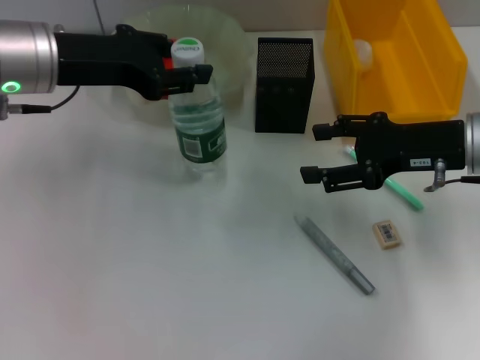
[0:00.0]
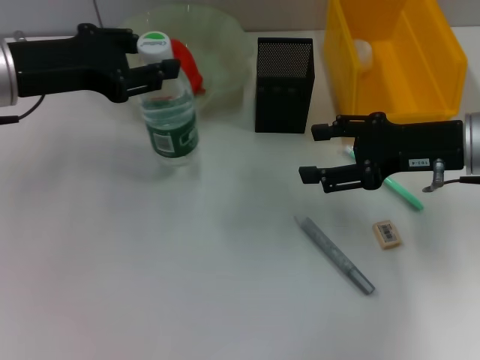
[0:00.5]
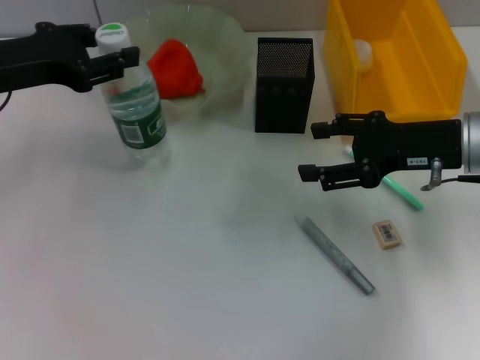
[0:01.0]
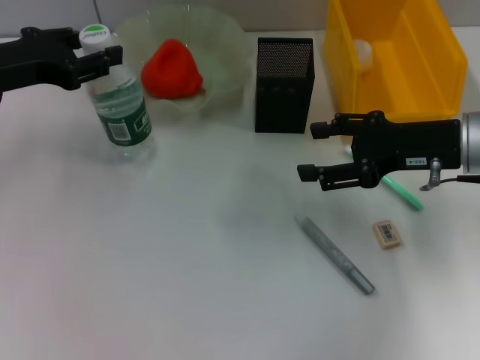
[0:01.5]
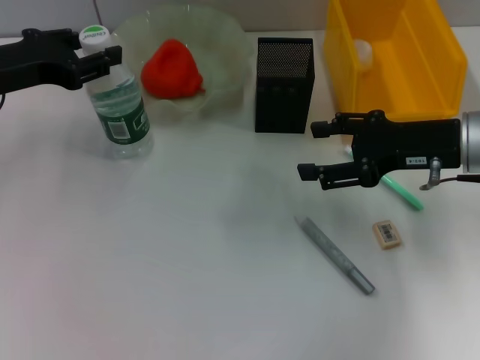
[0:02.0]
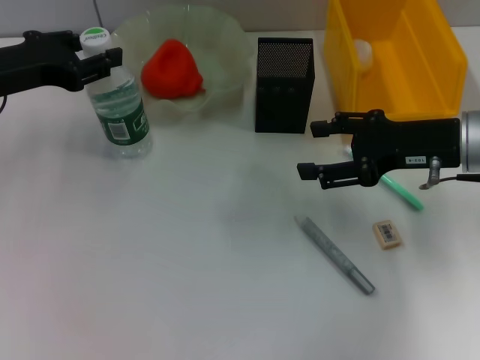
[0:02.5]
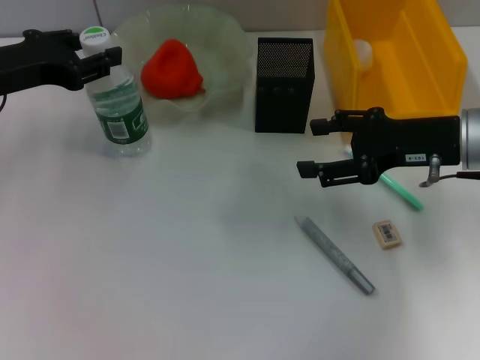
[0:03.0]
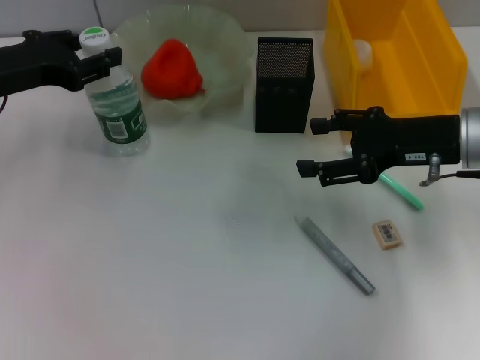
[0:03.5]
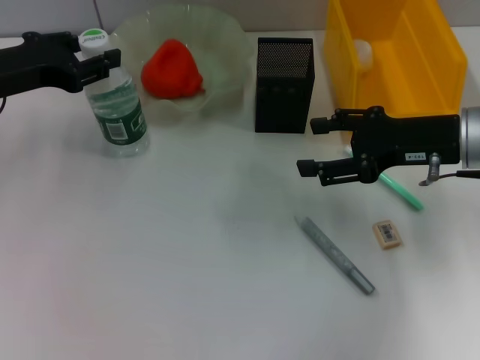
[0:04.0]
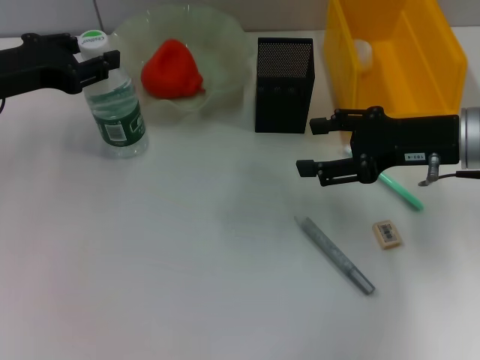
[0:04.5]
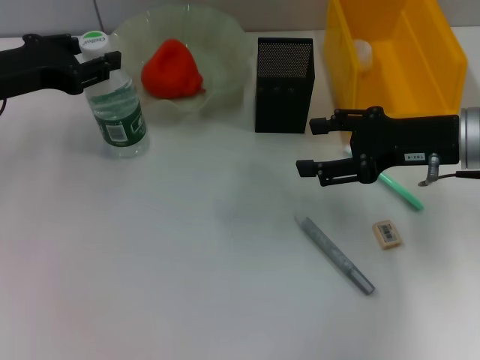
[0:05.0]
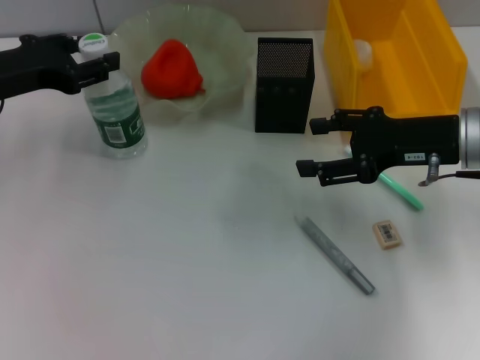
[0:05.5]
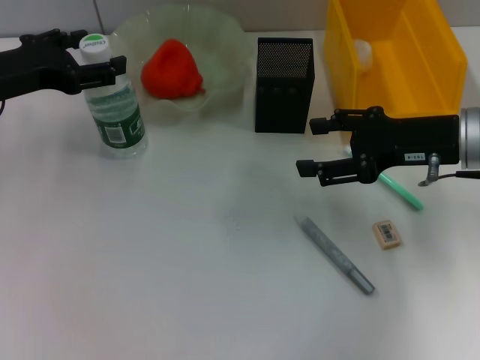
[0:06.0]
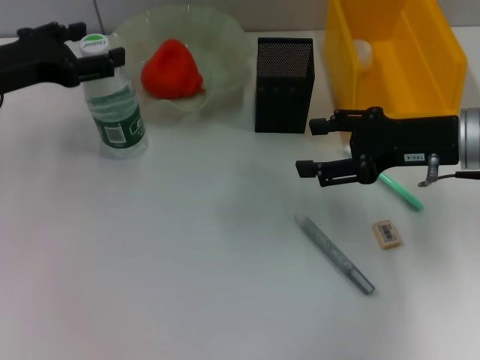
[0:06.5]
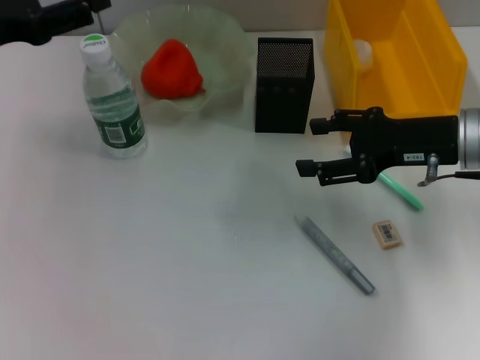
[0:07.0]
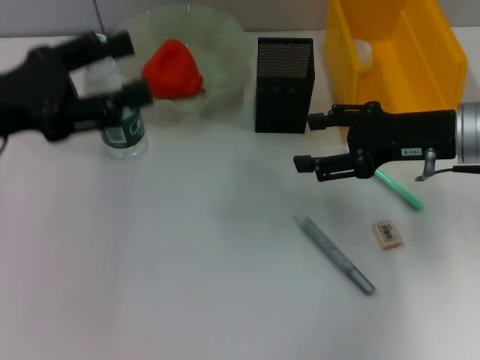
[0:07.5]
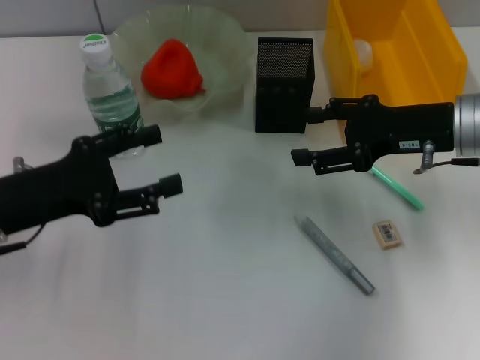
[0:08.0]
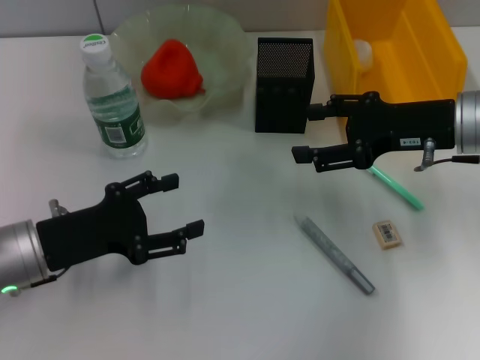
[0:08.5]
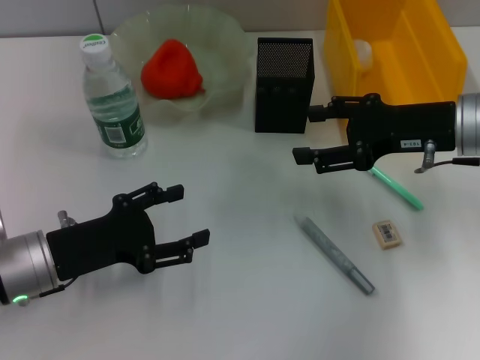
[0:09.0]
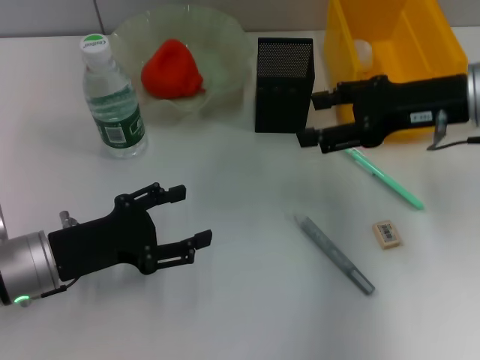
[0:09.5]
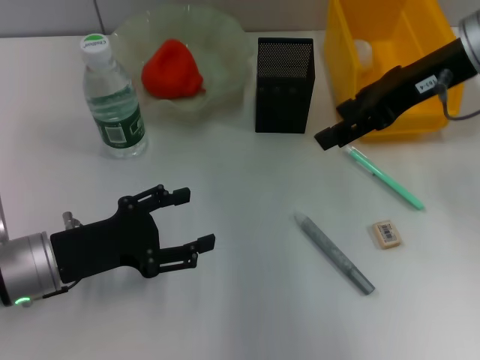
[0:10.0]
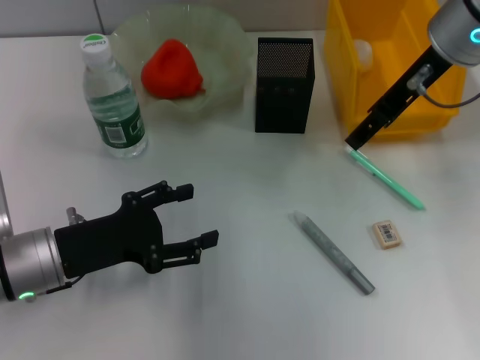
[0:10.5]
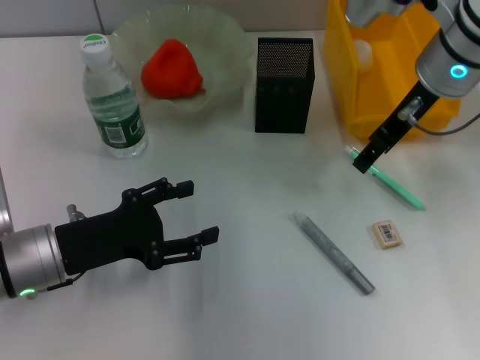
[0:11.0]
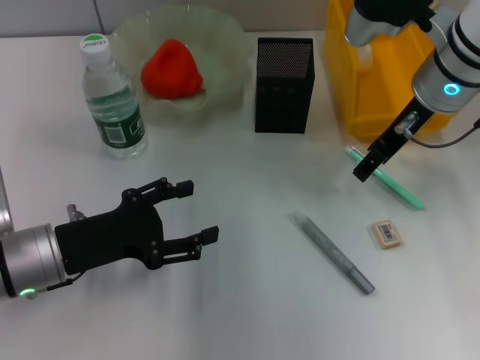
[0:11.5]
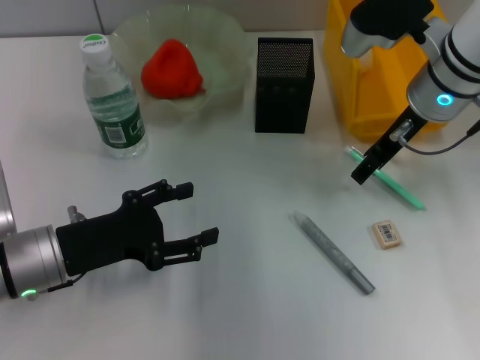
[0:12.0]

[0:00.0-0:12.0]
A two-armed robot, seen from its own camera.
Step, 0.0 to 5.5 s: Place the water bottle on the table with the left hand.
0.0 to 2.0 s: The left gripper moves to the left, some 5 cm.
2.0 to 4.0 s: Neither gripper changes place.
4.0 to 6.0 s: The left gripper opens.
6.0 to 8.0 s: The left gripper goes about 10 cm backward.
8.0 to 10.0 s: The left gripper is displaced downward by about 10 cm. Meanwhile the right gripper moves upward, approximately 10 cm.
10.0 to 12.0 s: The right gripper goes some 5 cm downward.

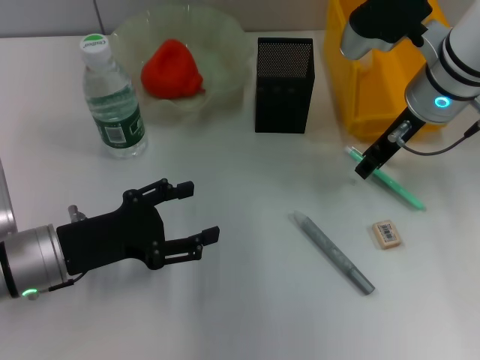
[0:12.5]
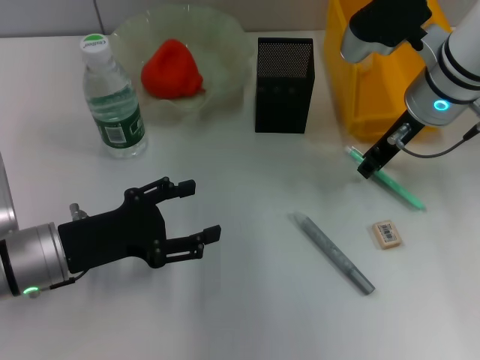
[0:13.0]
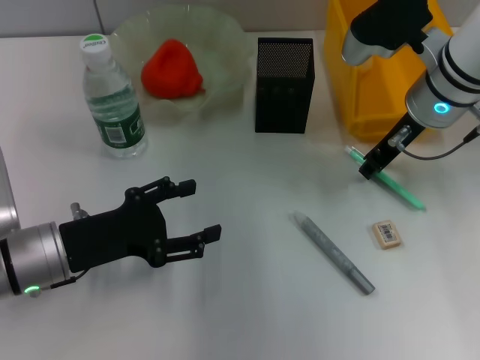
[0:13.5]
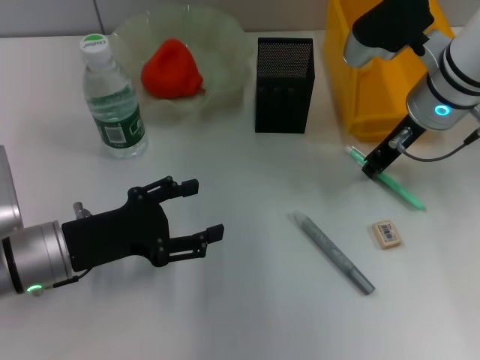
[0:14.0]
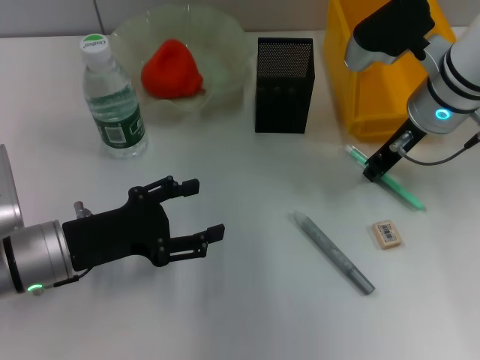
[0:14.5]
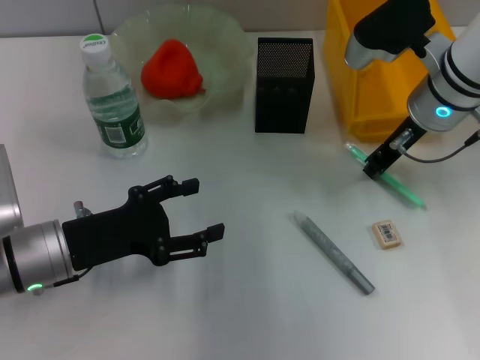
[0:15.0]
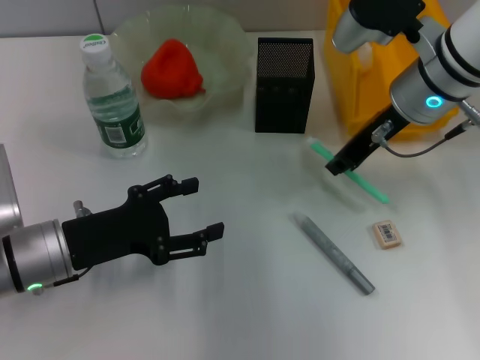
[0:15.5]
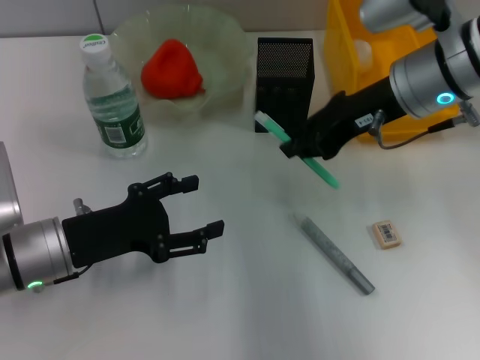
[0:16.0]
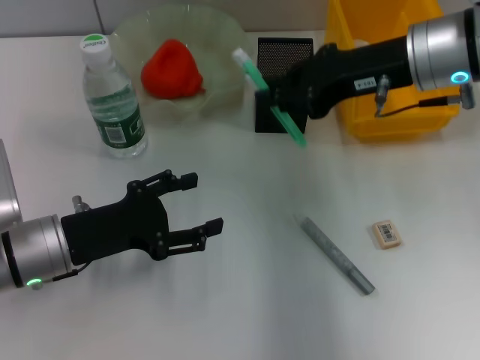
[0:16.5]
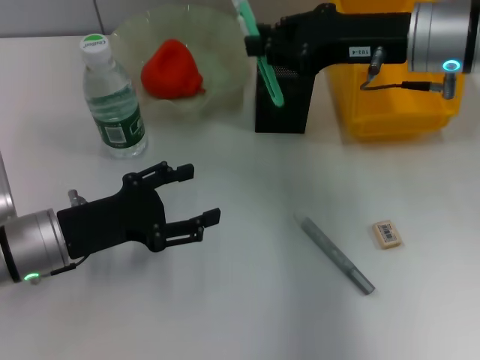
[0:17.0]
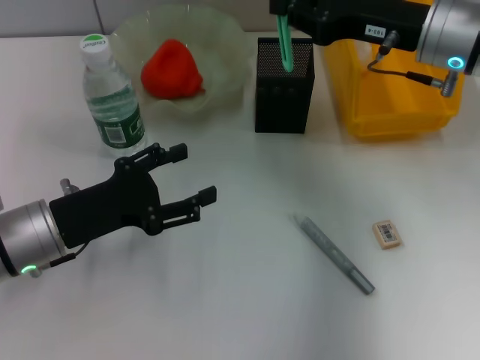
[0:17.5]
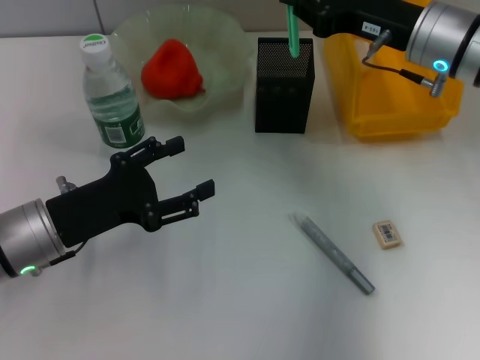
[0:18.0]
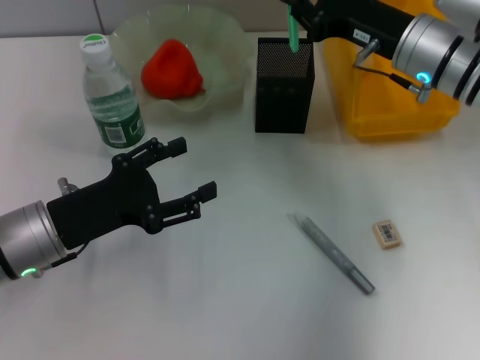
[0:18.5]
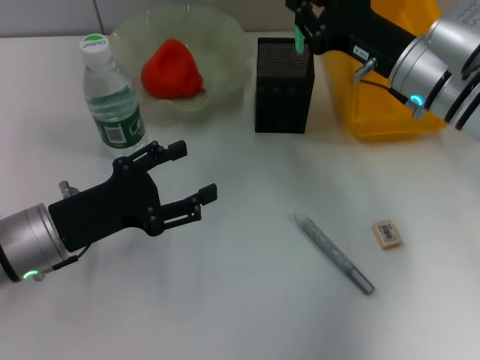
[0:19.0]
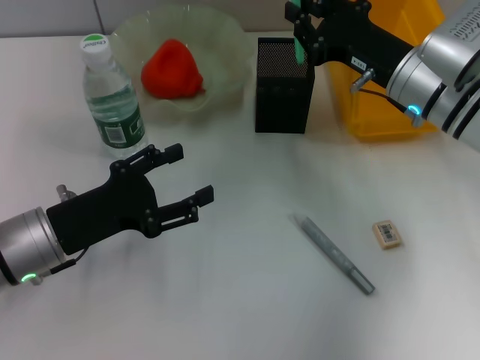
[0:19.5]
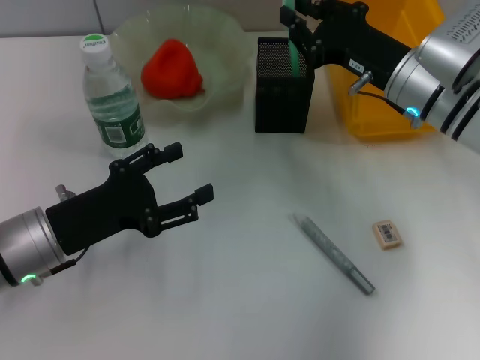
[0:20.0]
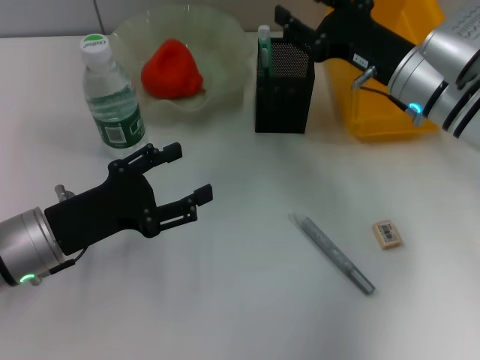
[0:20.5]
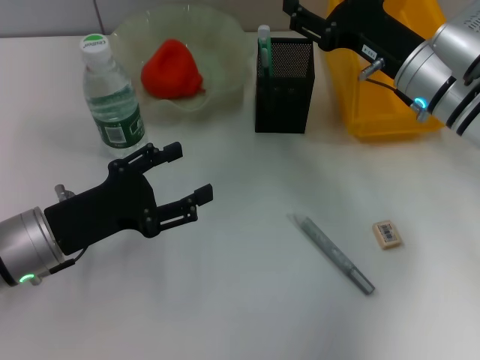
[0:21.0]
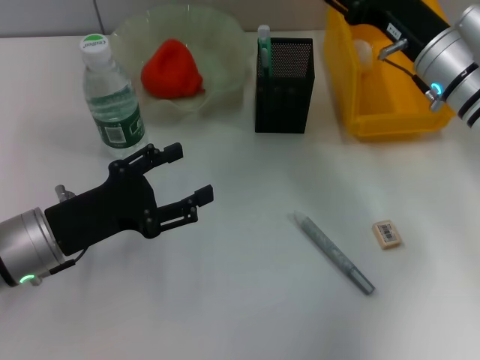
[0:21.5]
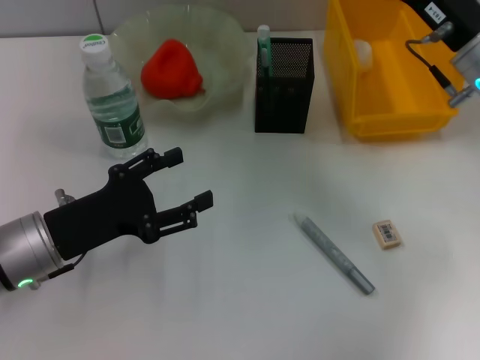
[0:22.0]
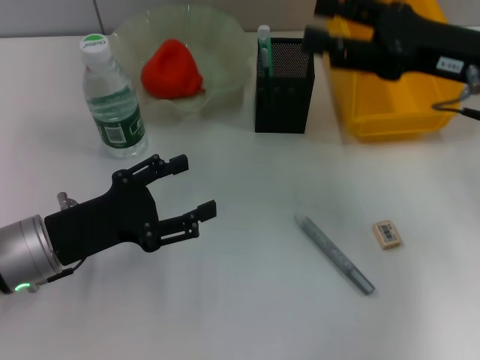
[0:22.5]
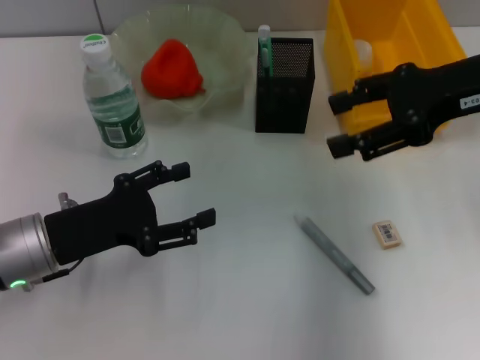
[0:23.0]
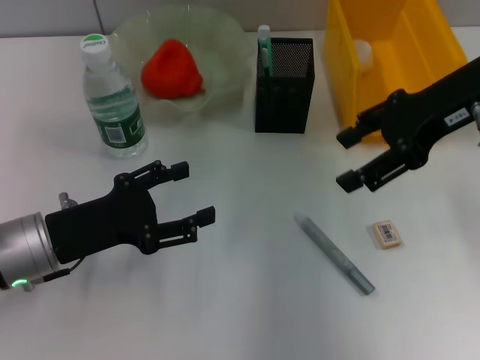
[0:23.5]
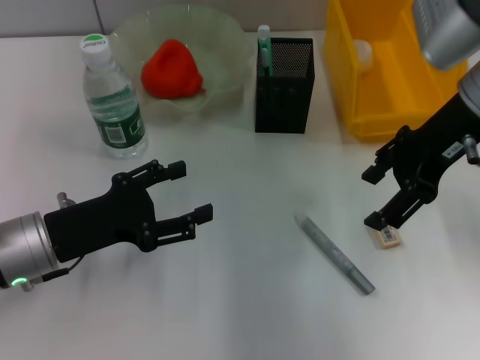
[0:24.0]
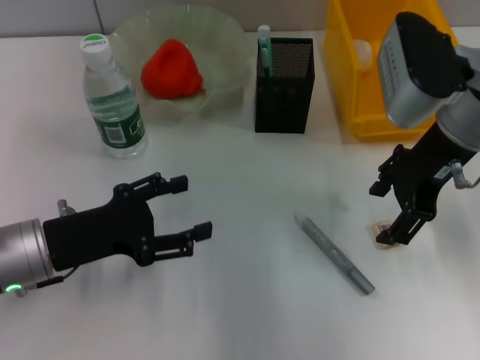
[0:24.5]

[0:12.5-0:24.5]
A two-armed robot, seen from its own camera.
Step, 12.5 to 14.5 s: Grab the blue utility knife with the right hand.
Step, 15.0 to 20.0 s: Place the blue utility knife into the pen holder with the right hand.
12.5 to 14.5 s: The right gripper closes.
14.5 to 16.5 s: The right gripper moves upward, about 5 cm.
16.5 to 18.5 s: The right gripper travels downward by some 5 cm.
18.5 to 20.5 s: The grippers move only a little.
20.5 to 22.5 s: The right gripper goes about 10 cm upward and to the right, and opens its fingers.
22.5 to 24.5 s: The right gripper travels to the left by roughly 5 cm.

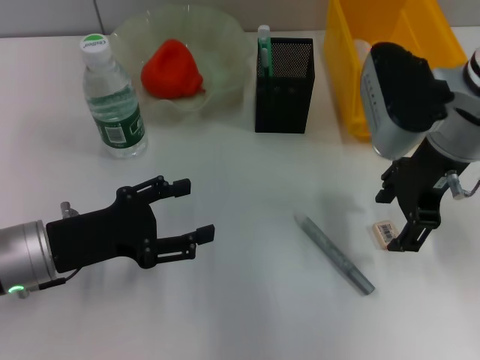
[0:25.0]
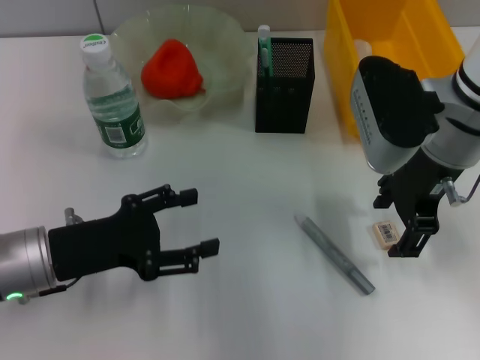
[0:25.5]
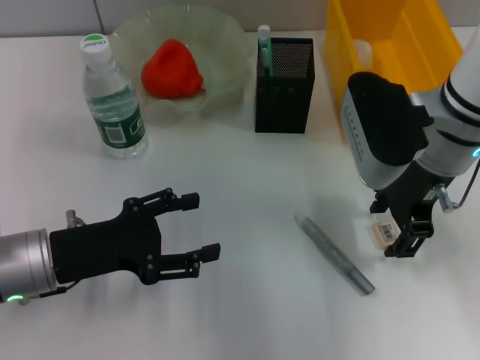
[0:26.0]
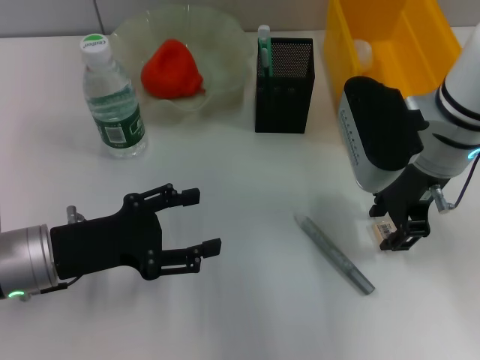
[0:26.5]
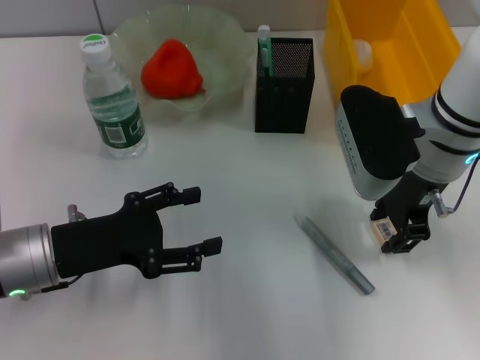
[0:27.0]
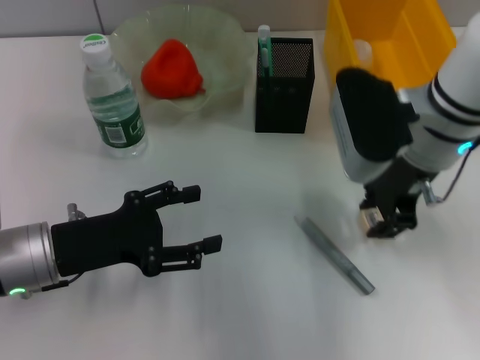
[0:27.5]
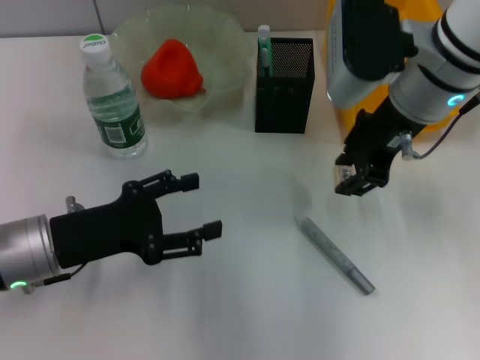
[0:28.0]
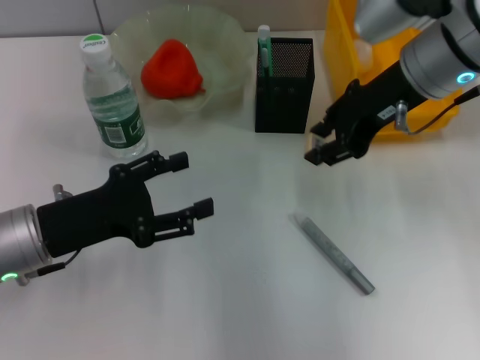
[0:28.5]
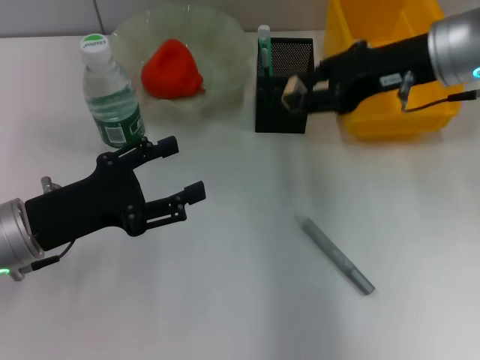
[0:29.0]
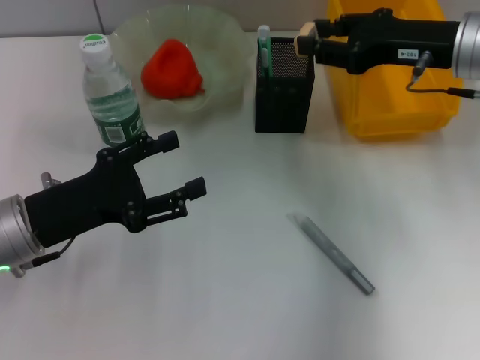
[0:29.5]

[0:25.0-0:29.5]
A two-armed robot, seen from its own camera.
Step, 25.0 to 27.0 s: Grab the eraser with the right hand.
25.0 to 27.0 s: The right gripper closes up.
27.0 to 29.5 s: The right gripper travels to the right by approximately 5 cm.
